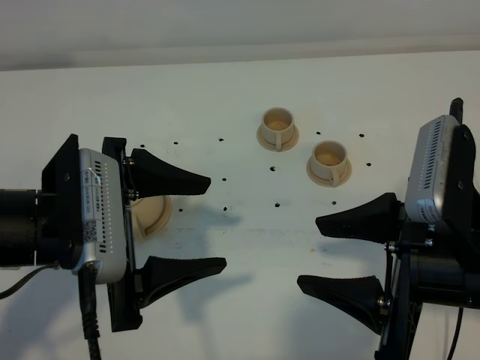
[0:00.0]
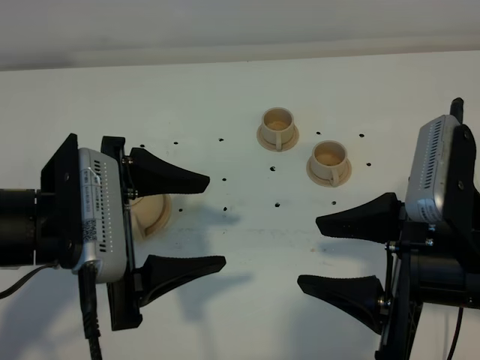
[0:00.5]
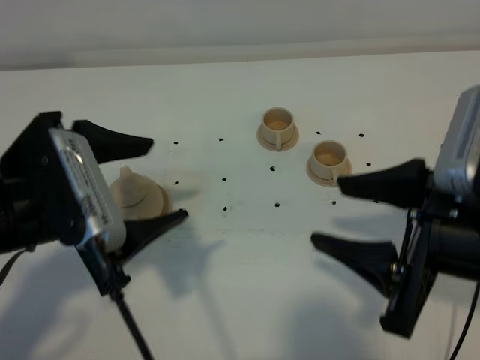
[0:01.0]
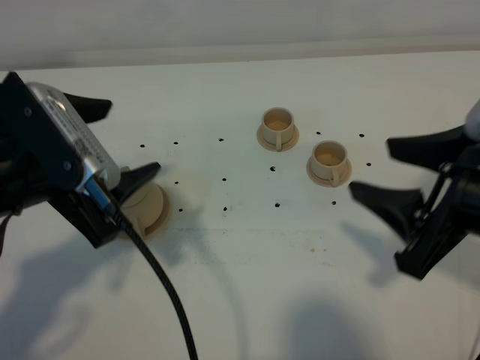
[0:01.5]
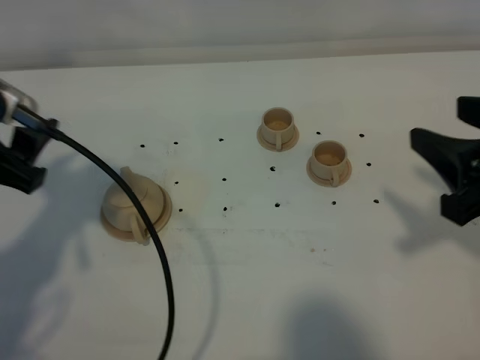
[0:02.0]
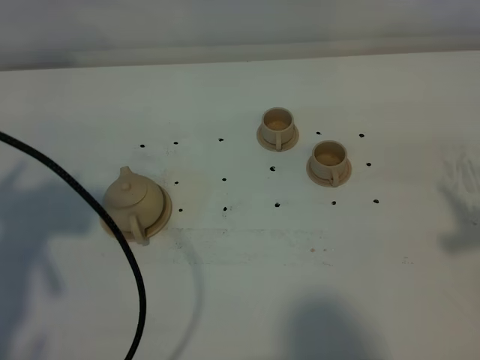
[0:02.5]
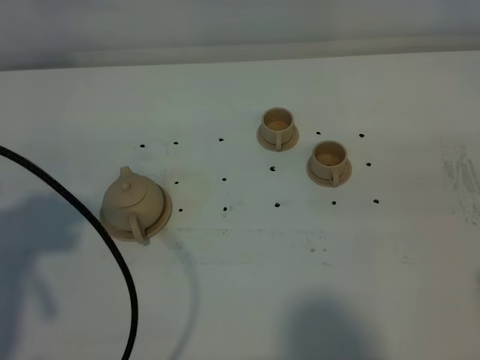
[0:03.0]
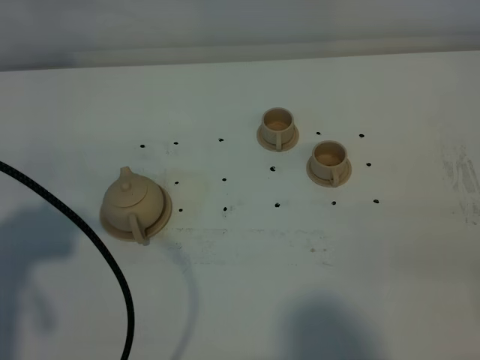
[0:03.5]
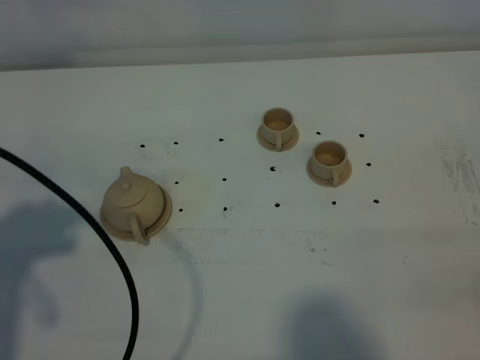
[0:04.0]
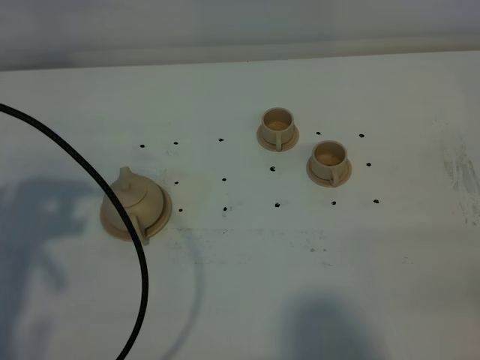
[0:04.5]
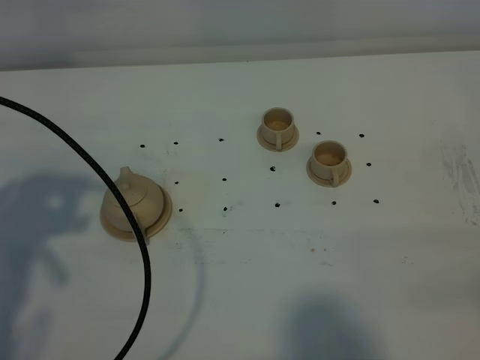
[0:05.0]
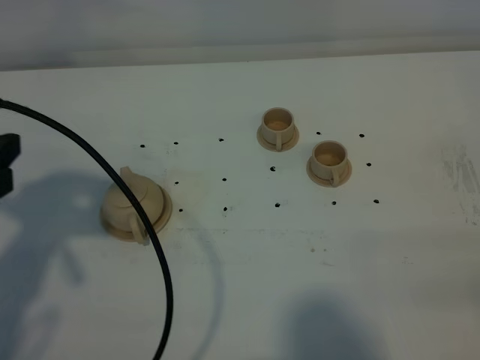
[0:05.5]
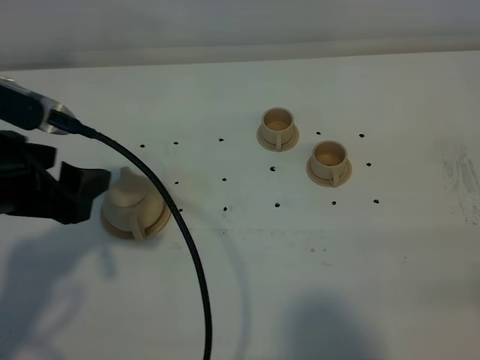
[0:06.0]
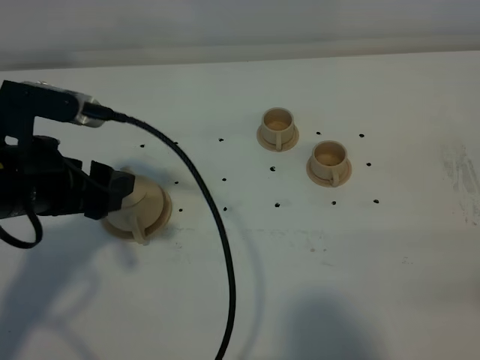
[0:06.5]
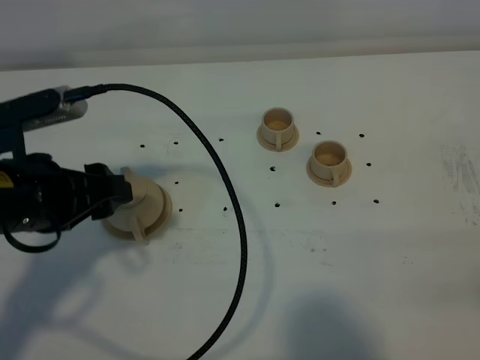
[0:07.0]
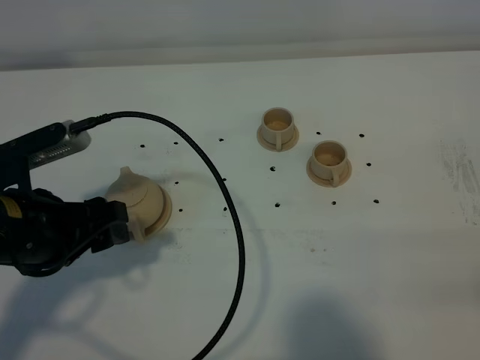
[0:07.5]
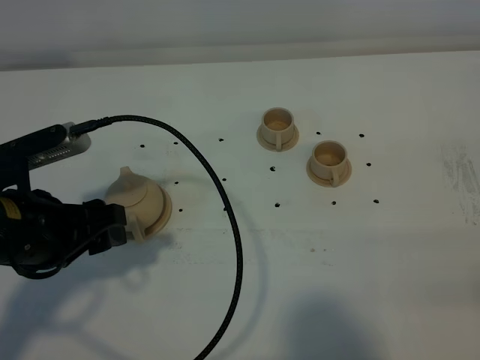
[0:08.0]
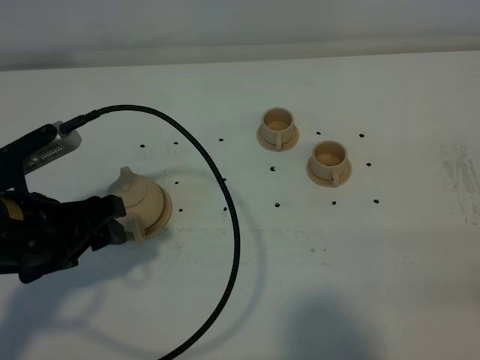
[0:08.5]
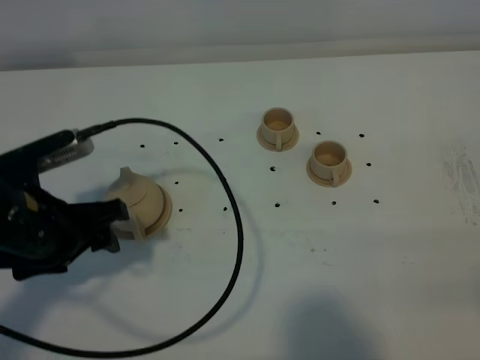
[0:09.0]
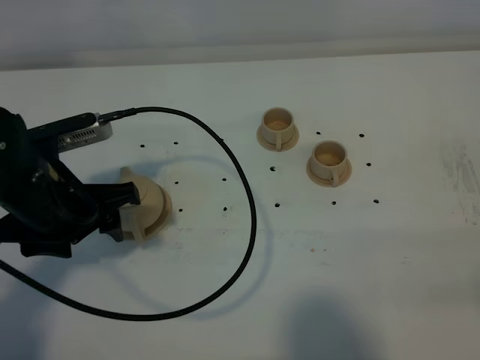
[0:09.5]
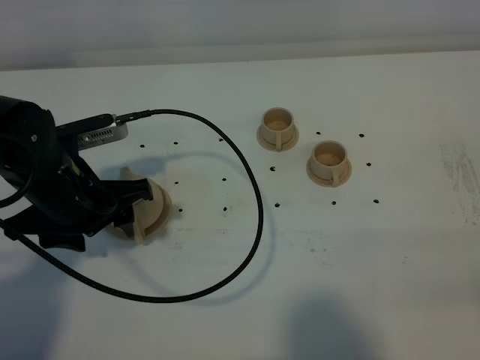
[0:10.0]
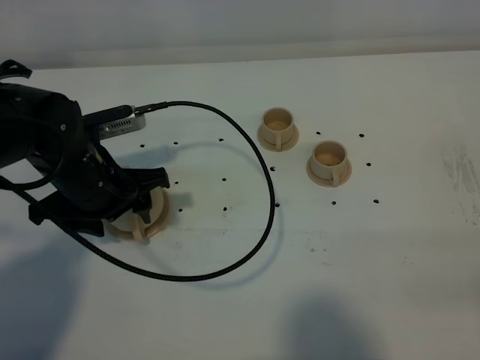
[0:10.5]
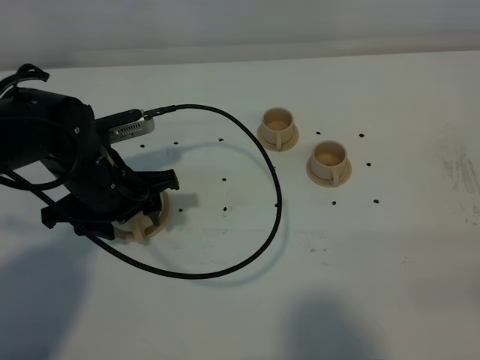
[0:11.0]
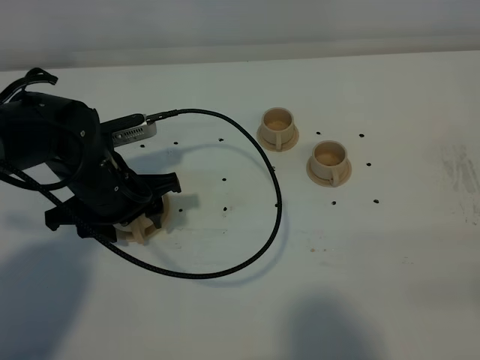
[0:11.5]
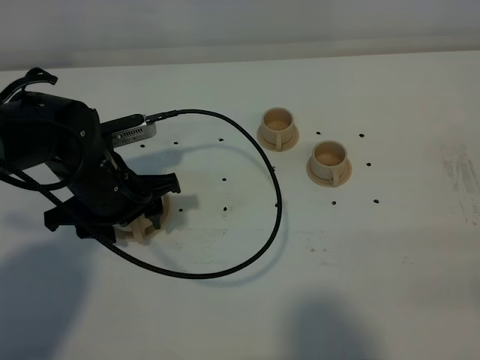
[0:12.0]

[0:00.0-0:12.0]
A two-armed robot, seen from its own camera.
Task of the whole recording: grasp the brown teapot and pour the tea into the two brown teacups one by one, put the brown teapot back in its original place.
0:00.0 to 0:02.0: The left gripper moves to the left, some 10 cm. Meanwhile the right gripper goes some 5 cm to the right.
0:02.0 to 0:04.0: The left gripper goes approximately 10 cm backward, while the right gripper travels backward and to the right by about 20 cm.
0:04.0 to 0:06.0: The left gripper travels forward, to the right and downward by some 15 cm.
0:06.0 to 0:08.0: The left gripper travels downward by roughly 5 cm.
0:08.0 to 0:10.0: The left gripper moves forward, about 5 cm.
0:10.0 to 0:12.0: The grippers stay close to where they were, moving slightly.

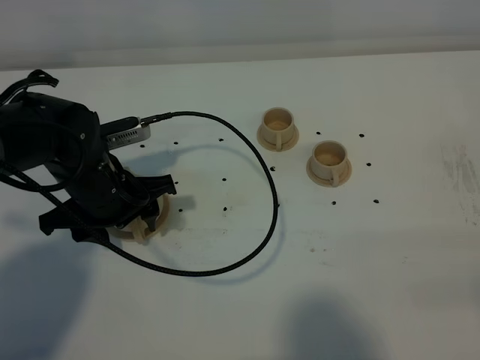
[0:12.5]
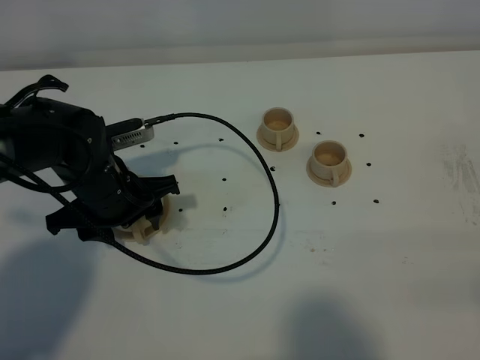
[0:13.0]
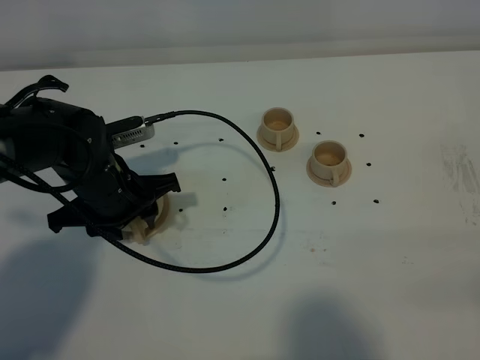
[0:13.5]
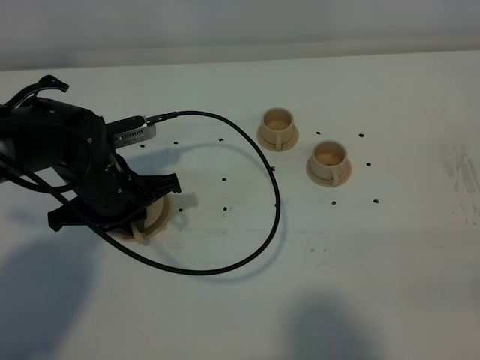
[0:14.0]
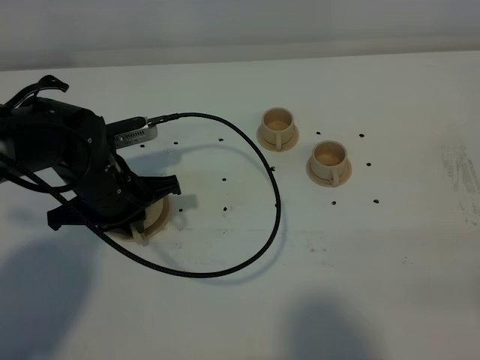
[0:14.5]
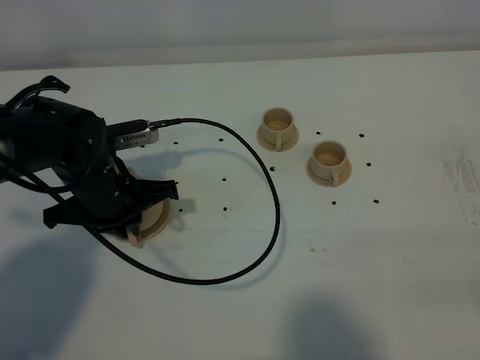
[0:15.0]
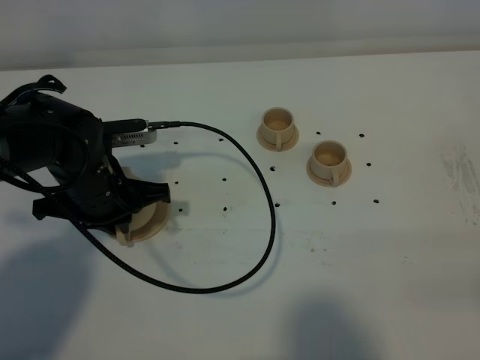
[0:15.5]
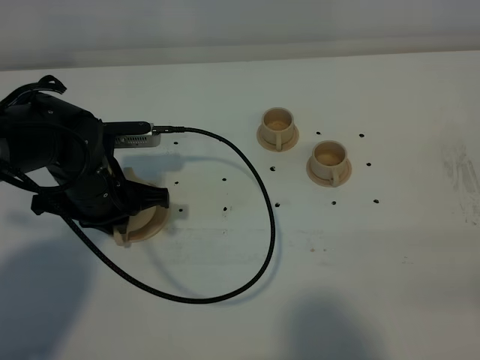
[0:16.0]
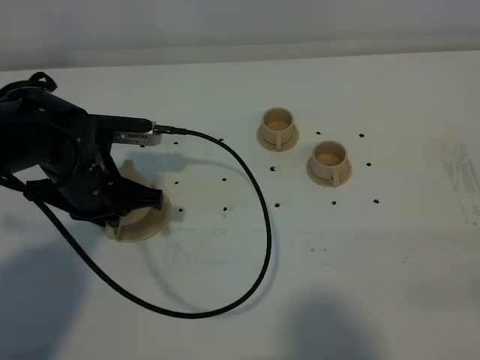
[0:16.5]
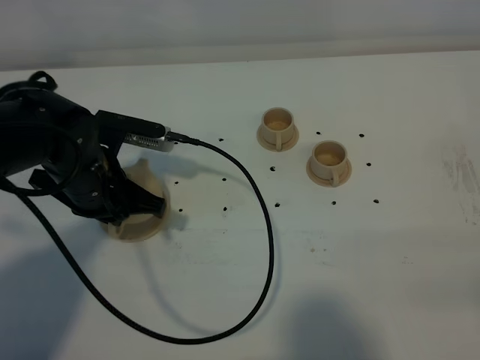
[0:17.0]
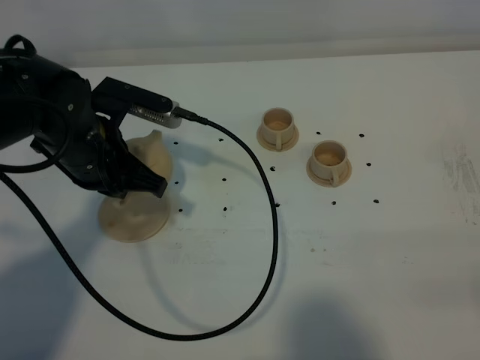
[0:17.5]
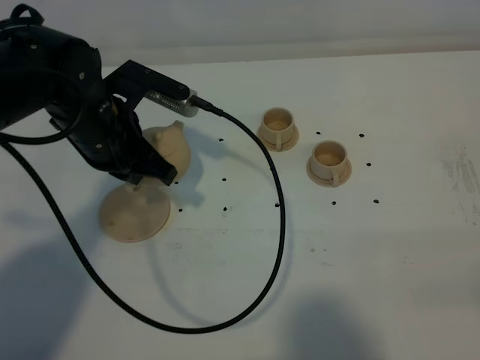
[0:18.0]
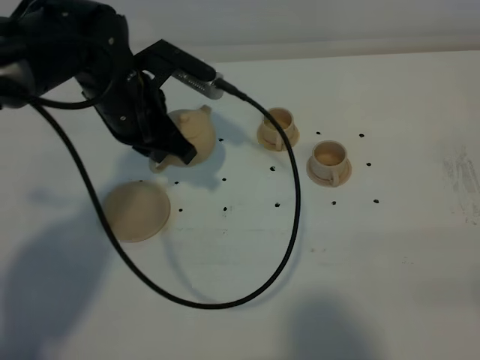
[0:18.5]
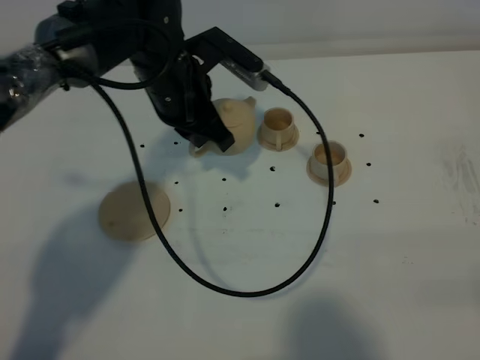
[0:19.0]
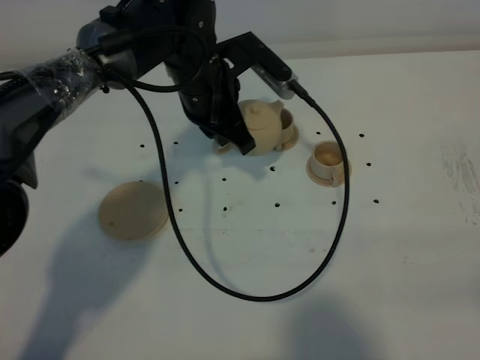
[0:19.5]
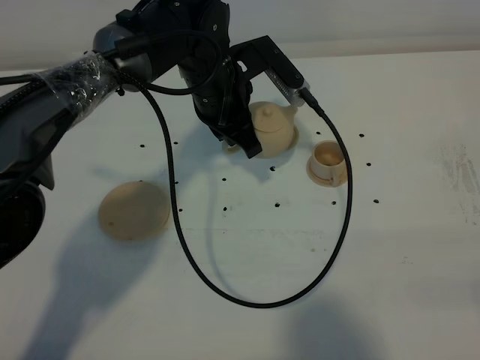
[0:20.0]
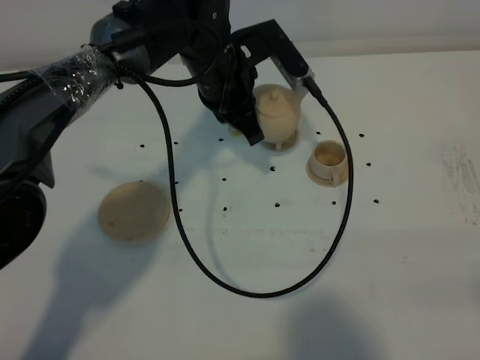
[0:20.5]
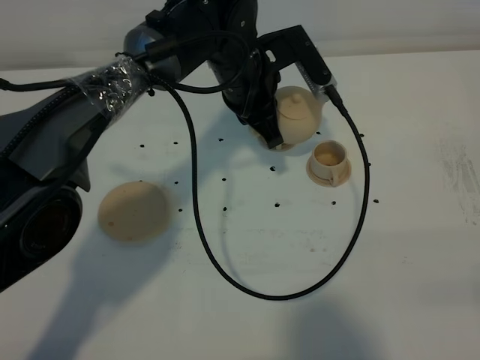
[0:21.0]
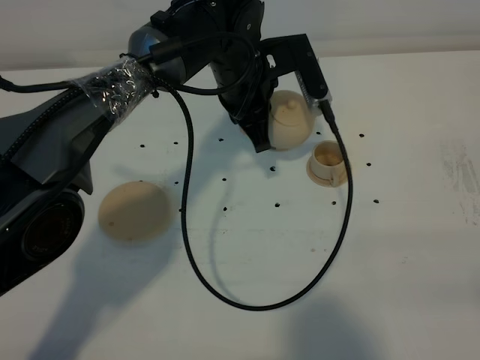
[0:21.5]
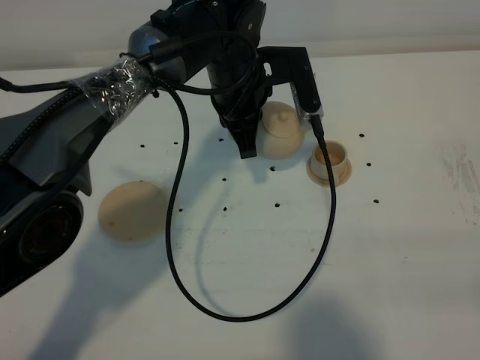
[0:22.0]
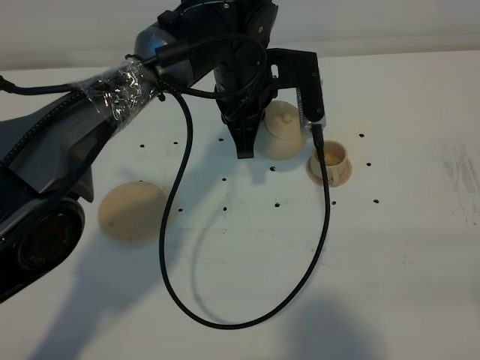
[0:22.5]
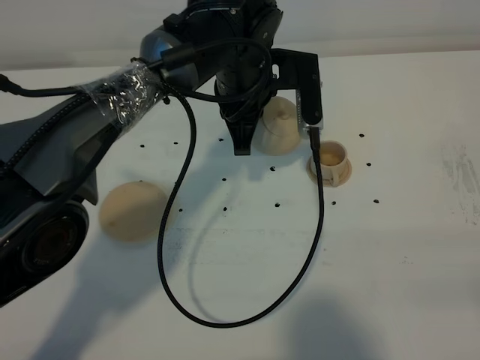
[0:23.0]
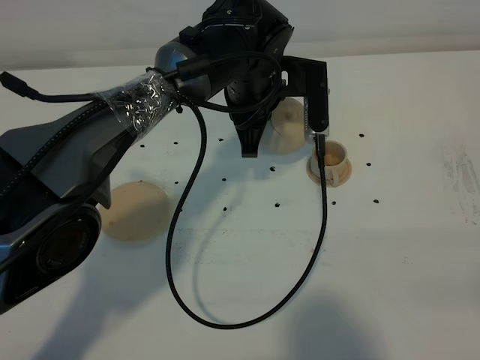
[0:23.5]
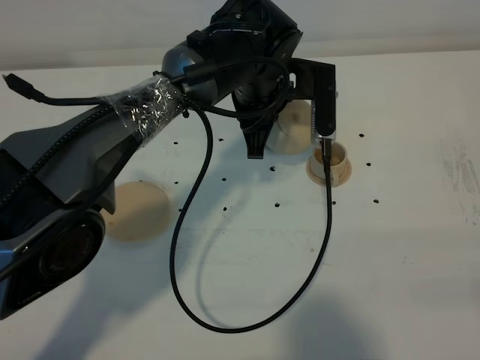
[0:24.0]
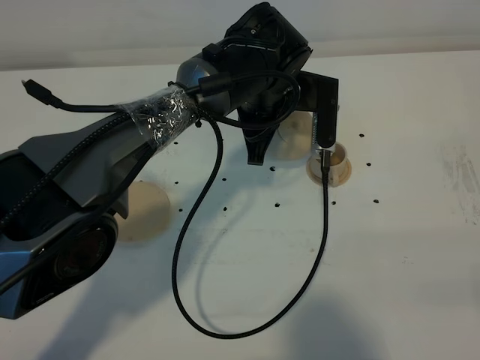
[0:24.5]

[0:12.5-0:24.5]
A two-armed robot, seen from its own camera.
Task of the whole recording: grasp the brown teapot and pour the tea into the two brown teacups one by one, put the brown teapot back in its original place.
Step, 0:12.5 to 0:16.0: Pick up the teapot with the left gripper.
0:12.5 to 0:14.5: The left gripper closes its fingers.
0:16.5 to 0:18.5: The left gripper heads upward, forward and to the right, covering about 10 cm.
0:18.5 to 0:20.5: The left gripper is displaced to the right by some 10 cm.

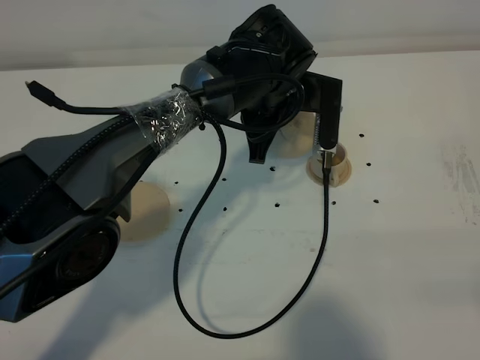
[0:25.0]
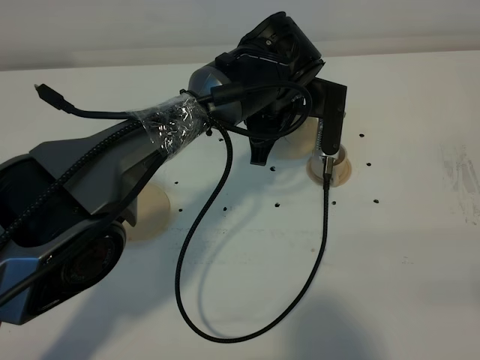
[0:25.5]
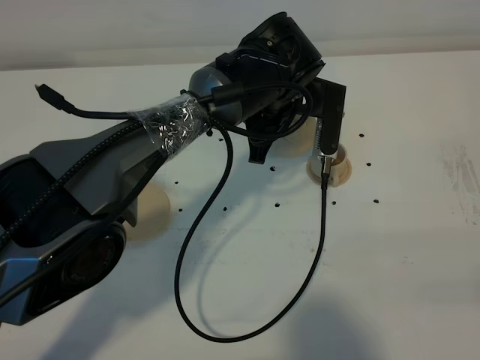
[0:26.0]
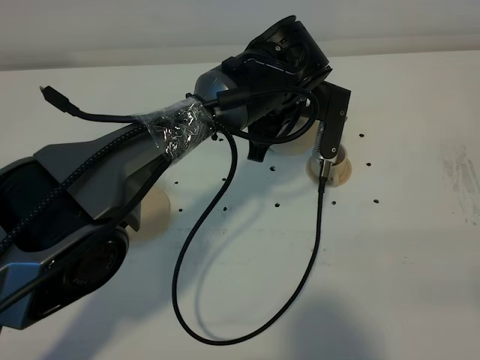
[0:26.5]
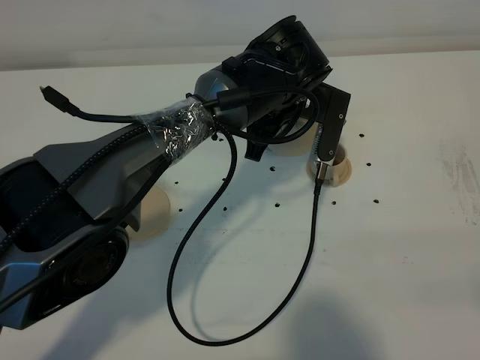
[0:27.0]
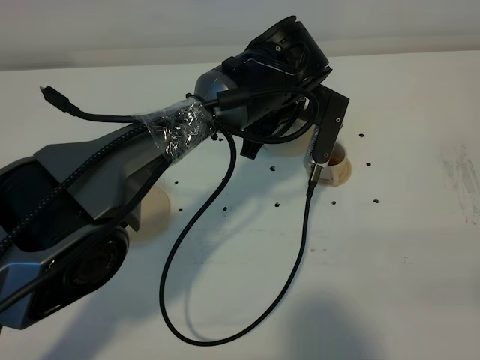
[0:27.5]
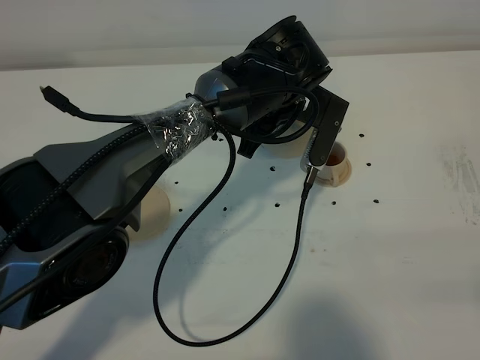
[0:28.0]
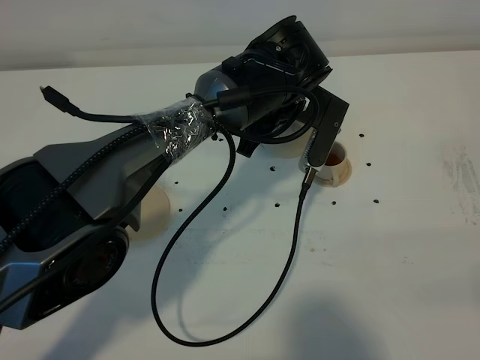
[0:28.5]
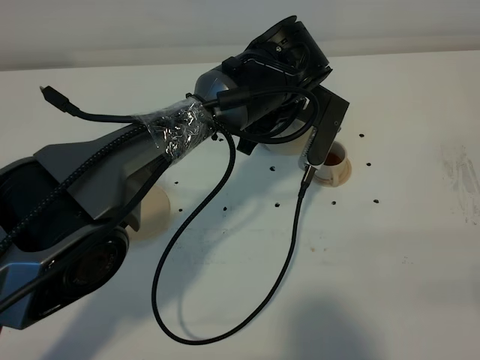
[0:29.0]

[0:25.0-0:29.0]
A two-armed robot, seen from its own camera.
Task of the whole recording: grasp the brown teapot and pour the tea into the two brown teacups one by one, put the brown teapot back in its original place.
0:25.0 to 0:29.0: The grippers move only a little.
